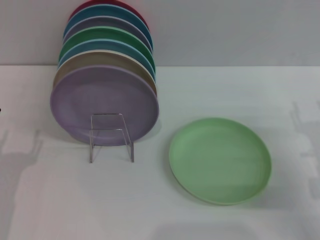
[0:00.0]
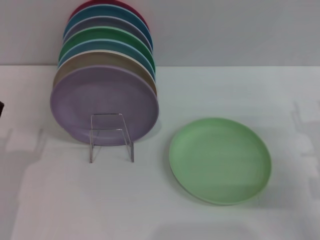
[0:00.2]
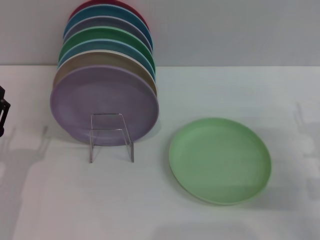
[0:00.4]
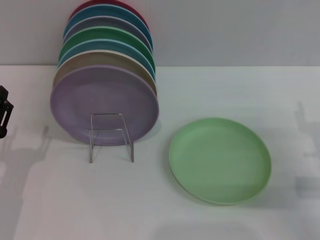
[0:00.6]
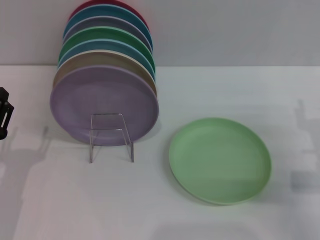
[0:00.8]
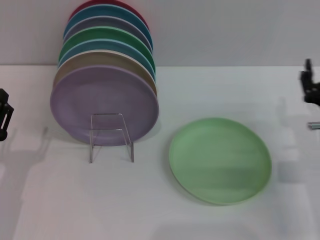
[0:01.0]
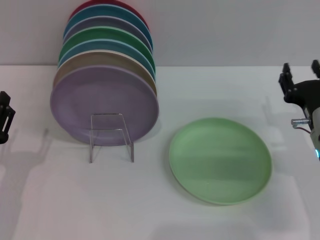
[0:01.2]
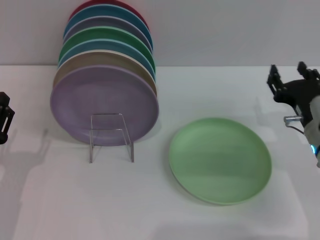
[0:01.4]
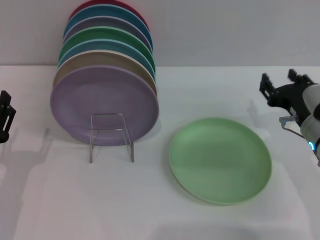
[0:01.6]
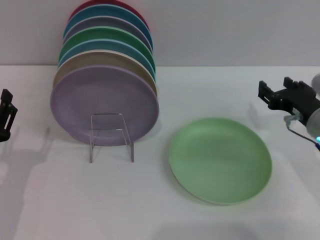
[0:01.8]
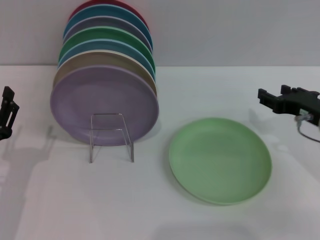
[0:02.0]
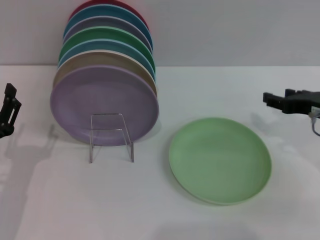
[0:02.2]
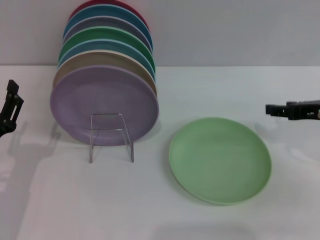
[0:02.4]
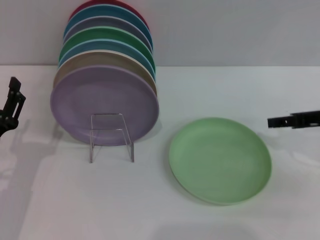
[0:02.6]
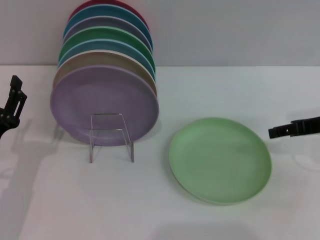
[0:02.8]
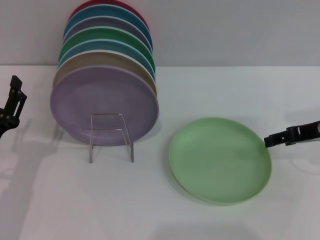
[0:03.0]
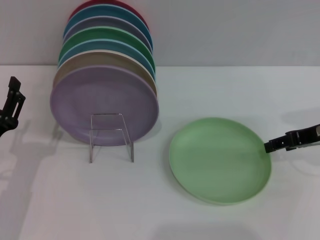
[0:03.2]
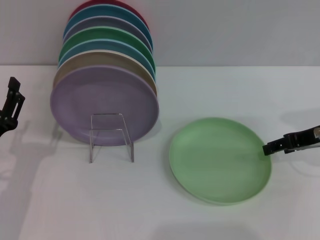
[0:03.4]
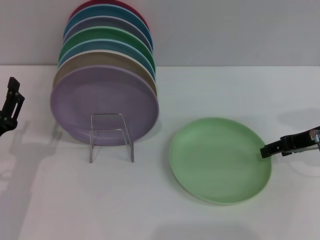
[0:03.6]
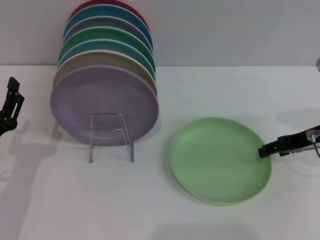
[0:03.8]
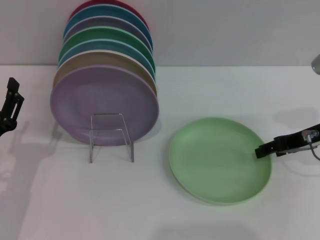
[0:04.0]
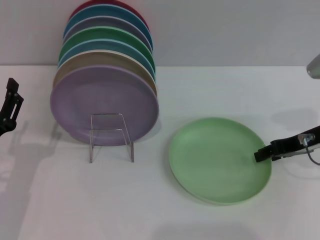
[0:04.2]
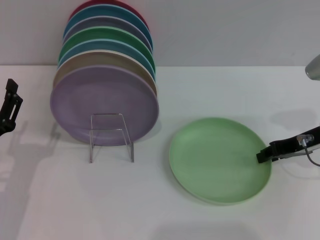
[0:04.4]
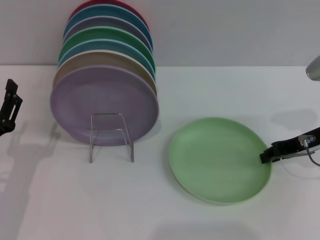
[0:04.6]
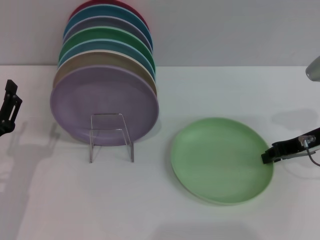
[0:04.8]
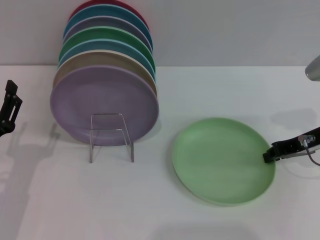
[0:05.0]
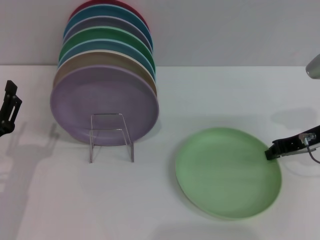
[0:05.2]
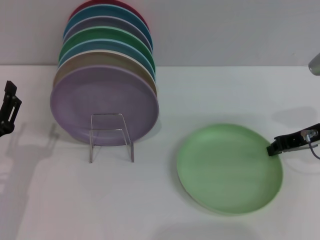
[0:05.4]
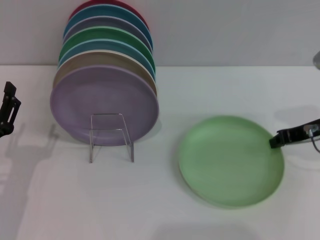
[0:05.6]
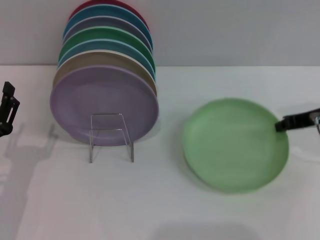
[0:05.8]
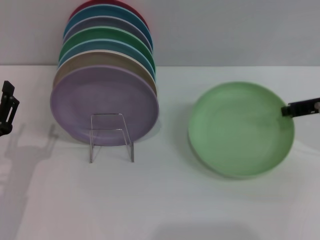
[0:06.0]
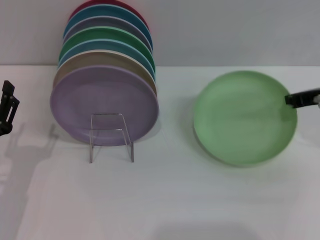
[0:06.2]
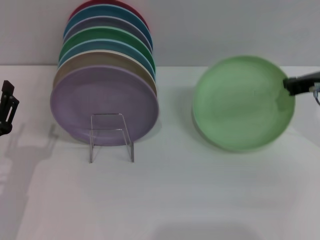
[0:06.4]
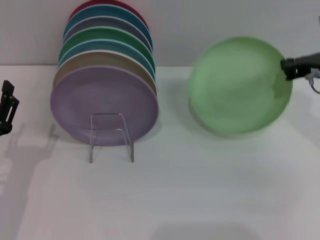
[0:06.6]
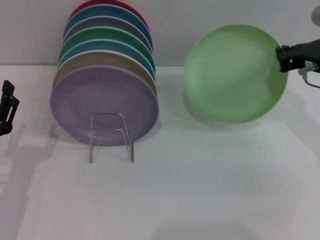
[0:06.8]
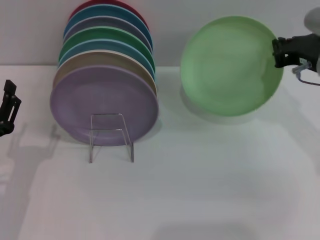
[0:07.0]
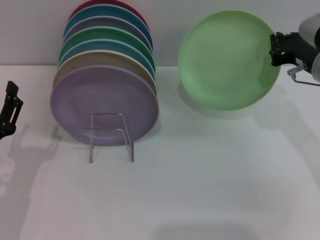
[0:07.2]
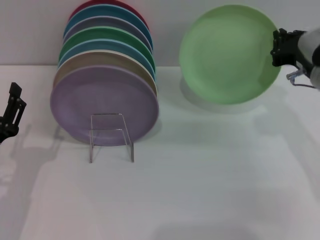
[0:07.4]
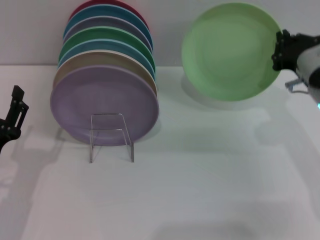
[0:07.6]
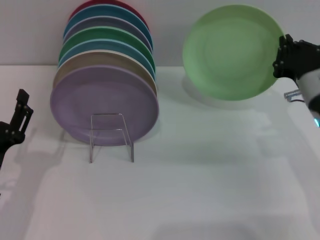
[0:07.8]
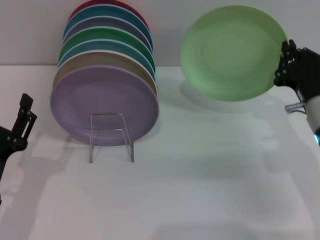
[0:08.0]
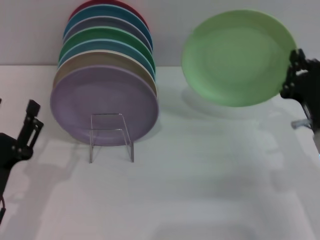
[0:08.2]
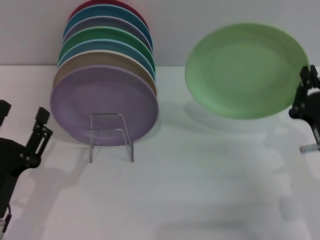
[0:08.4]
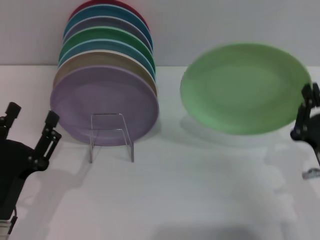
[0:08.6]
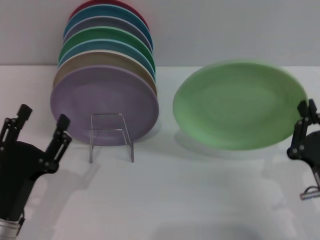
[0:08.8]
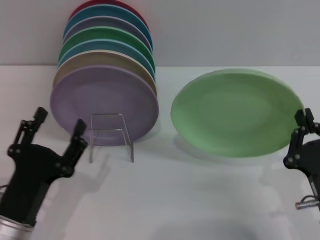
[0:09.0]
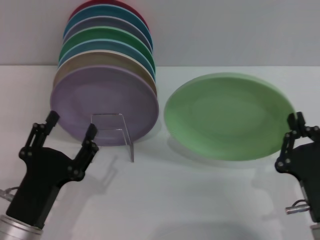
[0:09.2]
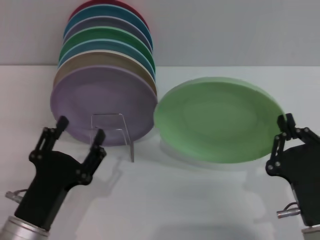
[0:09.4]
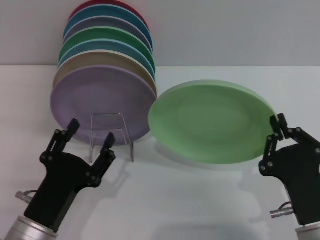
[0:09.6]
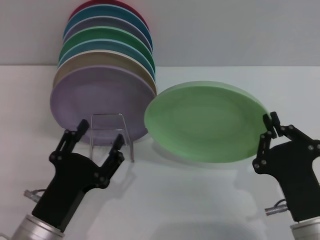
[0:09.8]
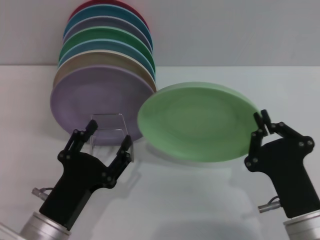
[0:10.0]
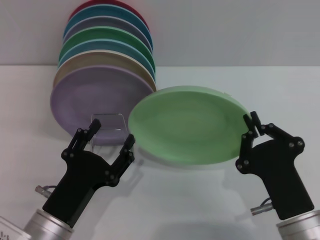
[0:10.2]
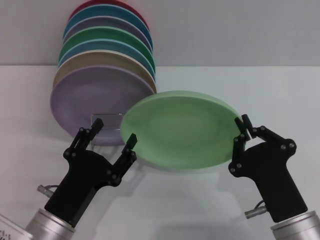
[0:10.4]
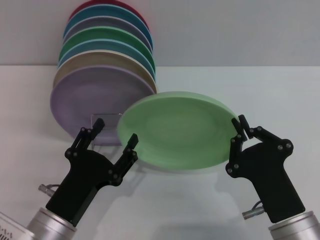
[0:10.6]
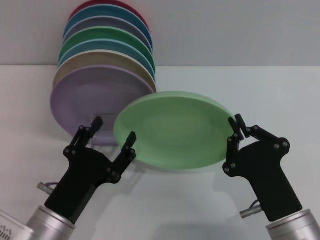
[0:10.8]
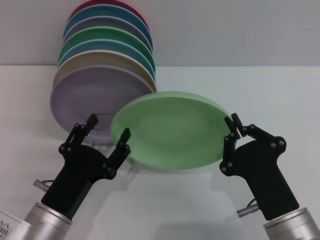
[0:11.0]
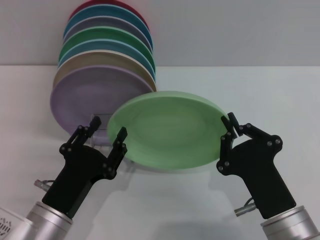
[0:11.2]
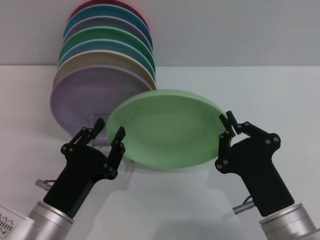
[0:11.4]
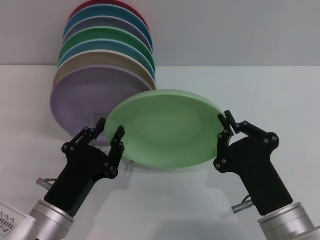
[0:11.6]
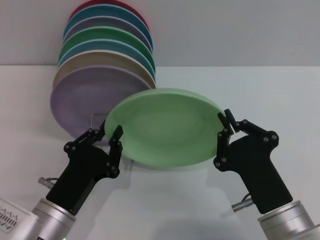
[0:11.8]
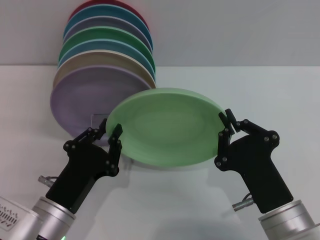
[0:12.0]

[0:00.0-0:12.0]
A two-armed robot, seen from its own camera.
Task of the whole recording: Grip the plate with one hand, pass it to the other, then set it on the shelf.
Step, 0:00.0 to 0:07.4: Pick up the plate with the right gripper.
0:00.0 to 0:01.6: The right gripper heads to the left, covering about 5 cm.
0:01.6 to 0:03.0: The right gripper goes approximately 10 cm upward and to the right.
0:03.0 to 0:04.4: There are only small adjustments of the grippers.
0:04.4 to 0:06.0: The right gripper closes up.
0:06.0 to 0:07.6: The right gripper shifts roughly 5 cm to the left.
0:07.6 to 0:09.0: The right gripper heads backward and downward, covering roughly 20 cm; the left gripper changes place by approximately 5 cm.
0:09.0 to 0:10.4: The right gripper travels to the left by roughly 5 cm.
0:10.4 to 0:12.0: The left gripper closes up.

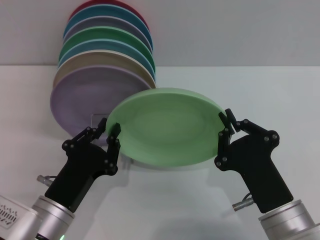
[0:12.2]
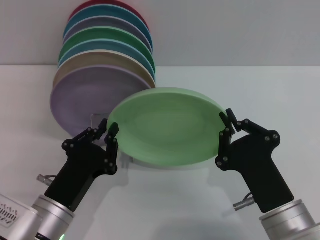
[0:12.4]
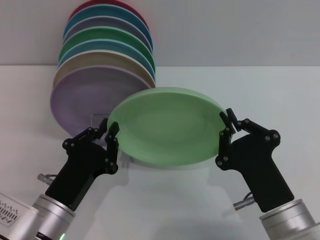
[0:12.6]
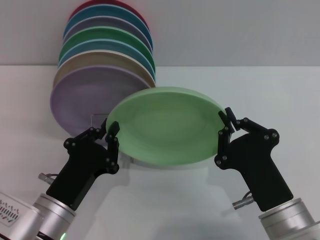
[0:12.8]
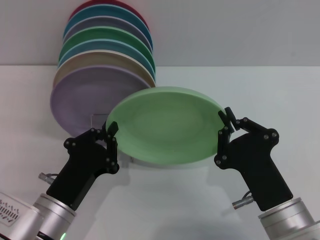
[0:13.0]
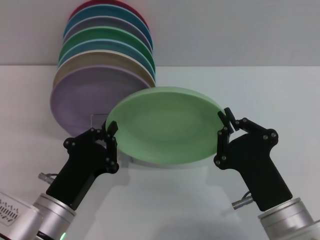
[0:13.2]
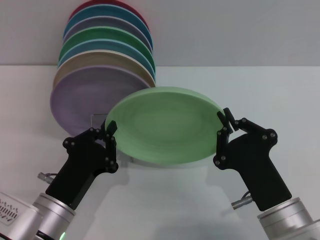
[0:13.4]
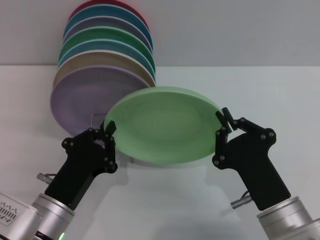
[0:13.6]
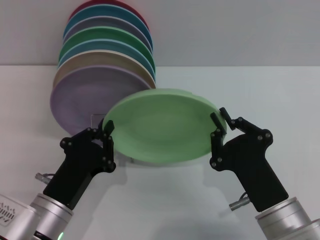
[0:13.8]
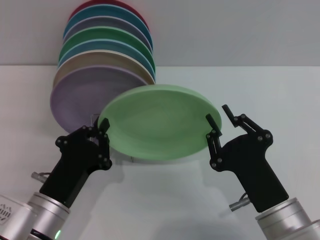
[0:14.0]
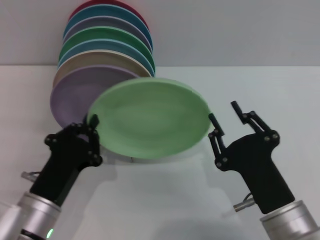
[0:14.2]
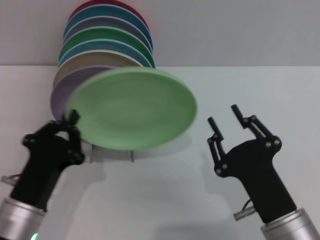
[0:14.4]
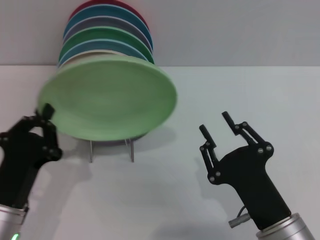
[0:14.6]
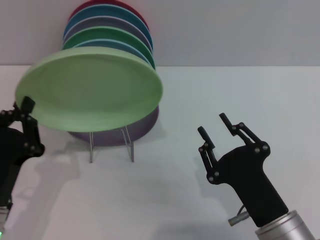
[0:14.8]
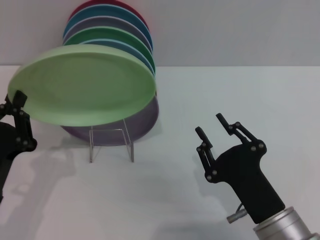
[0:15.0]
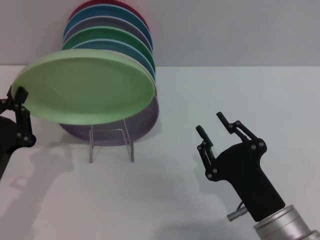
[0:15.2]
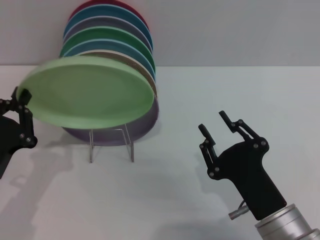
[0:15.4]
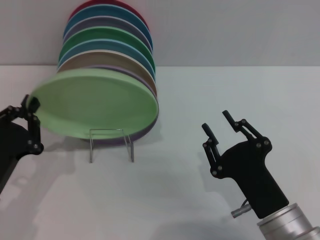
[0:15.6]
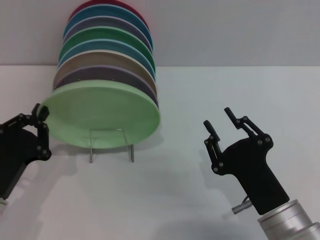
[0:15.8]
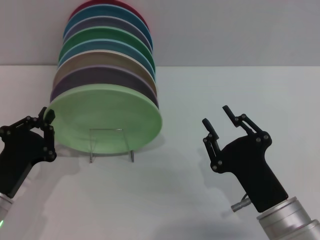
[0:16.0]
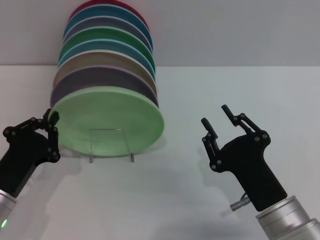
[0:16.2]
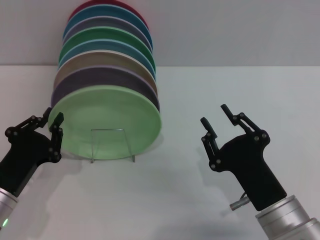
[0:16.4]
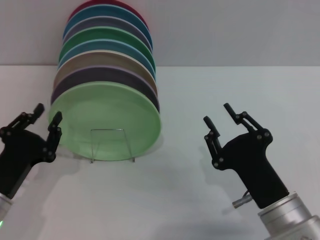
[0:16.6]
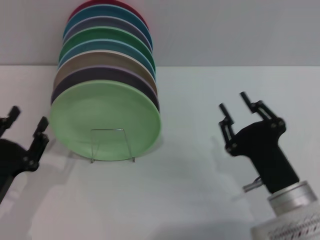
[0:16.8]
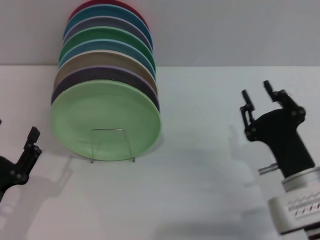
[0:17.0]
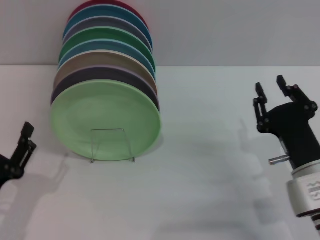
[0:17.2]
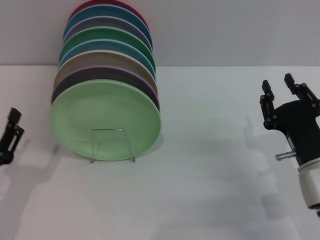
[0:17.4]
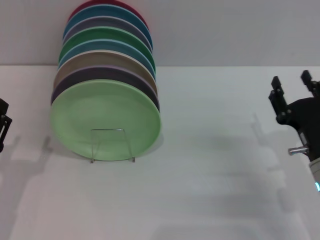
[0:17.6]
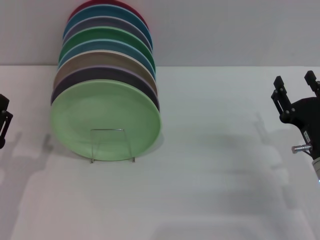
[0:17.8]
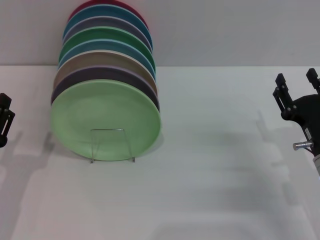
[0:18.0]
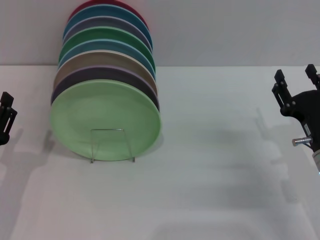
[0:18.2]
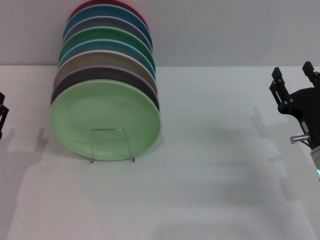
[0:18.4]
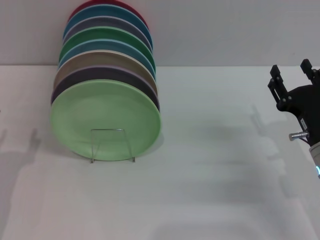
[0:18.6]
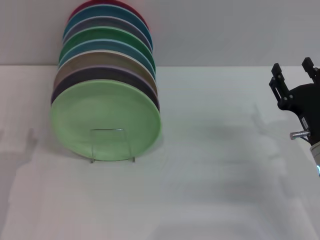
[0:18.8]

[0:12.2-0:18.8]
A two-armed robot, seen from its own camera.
Task of the whole recording: Grip the plate with one hand, pass it to the other, then set it on the shelf.
Step, 0:12.2 to 0:14.4: Pass the plate from the right gripper to the left gripper.
Step, 0:14.6 to 0:16.8: Place the plate on the shelf with the left gripper.
0:12.2 to 0:13.8: Neither gripper changes place.
0:13.8 to 0:15.4: The right gripper opens up. Meanwhile the left gripper travels to the left by approximately 10 cm.
0:15.4 to 0:17.2: The right gripper is displaced forward and to the right by about 10 cm. Meanwhile the left gripper opens up.
0:17.2 to 0:18.8: The left gripper changes place by roughly 5 cm. Meanwhile the right gripper moves approximately 5 cm, and opens.
